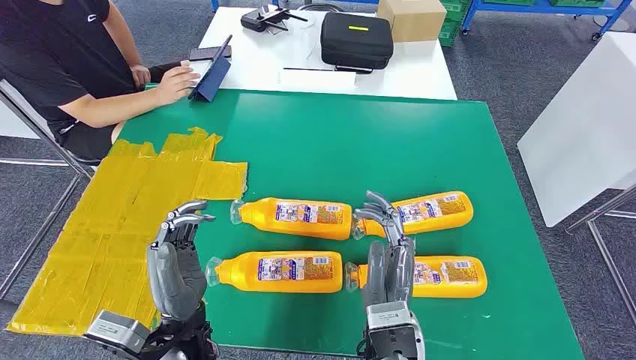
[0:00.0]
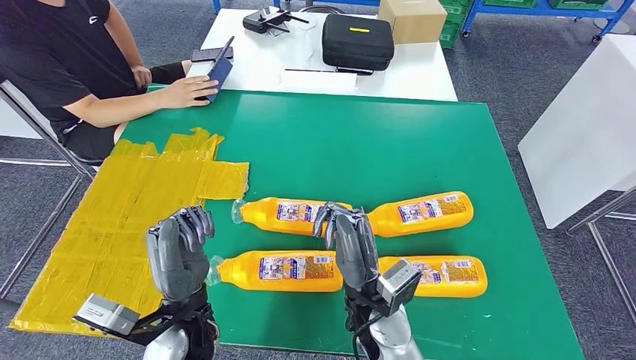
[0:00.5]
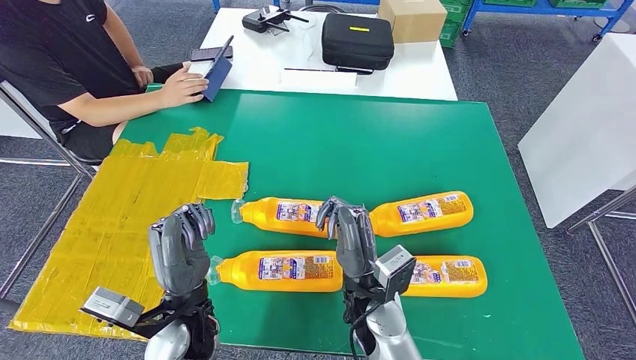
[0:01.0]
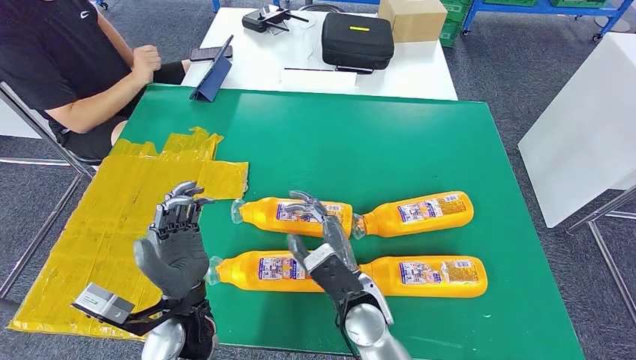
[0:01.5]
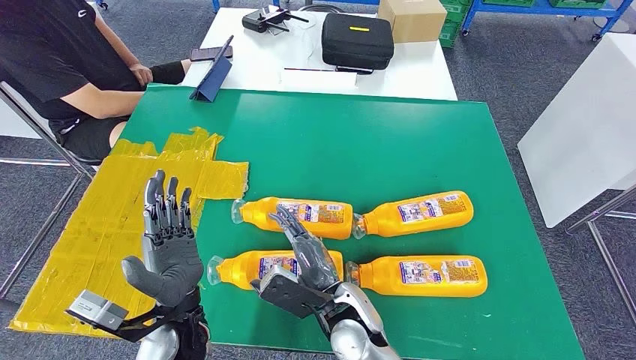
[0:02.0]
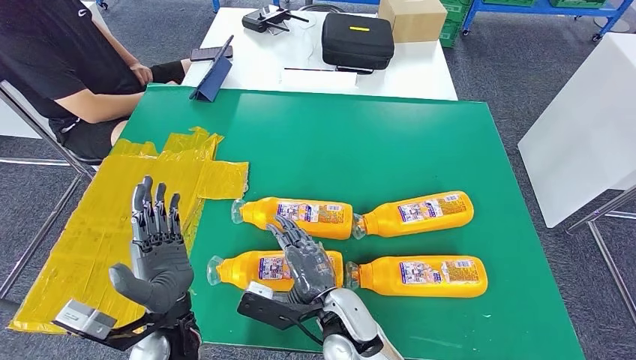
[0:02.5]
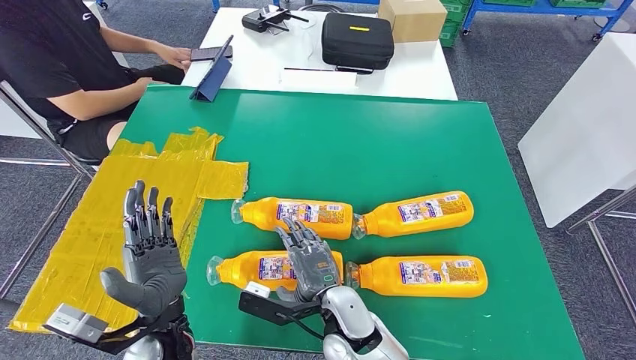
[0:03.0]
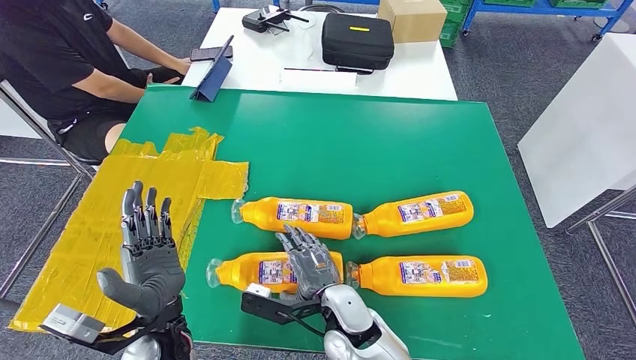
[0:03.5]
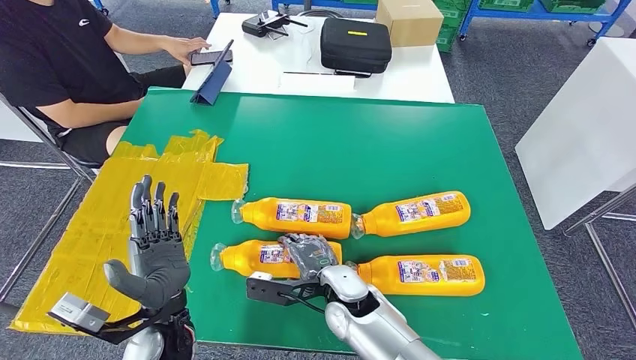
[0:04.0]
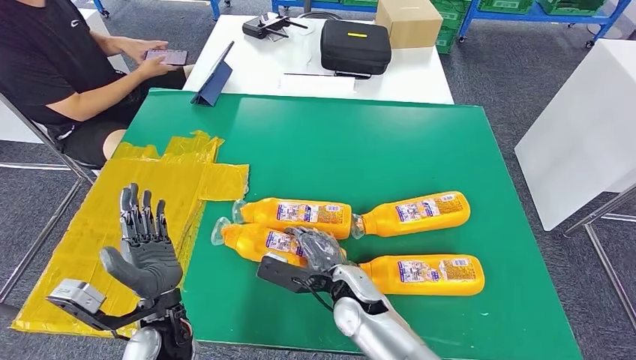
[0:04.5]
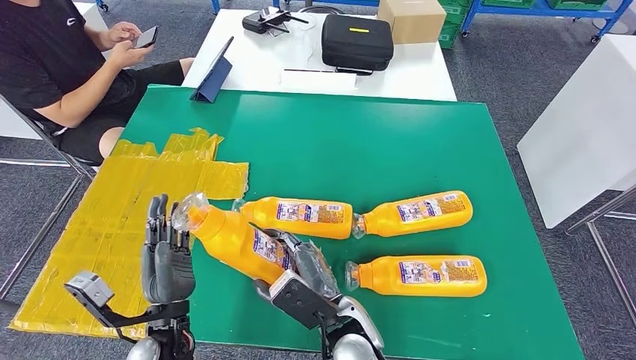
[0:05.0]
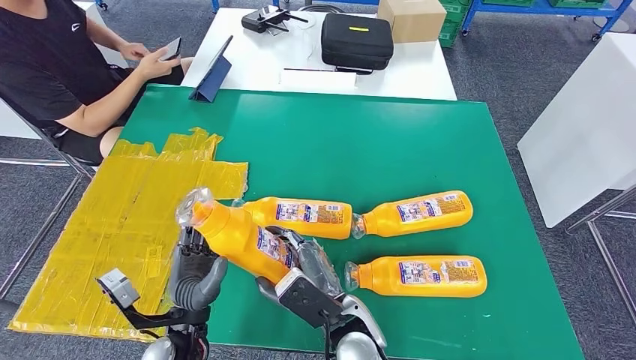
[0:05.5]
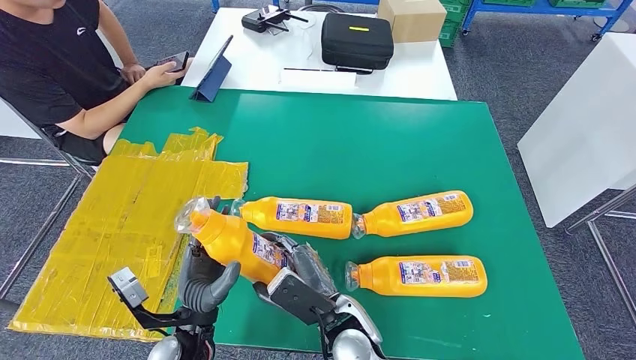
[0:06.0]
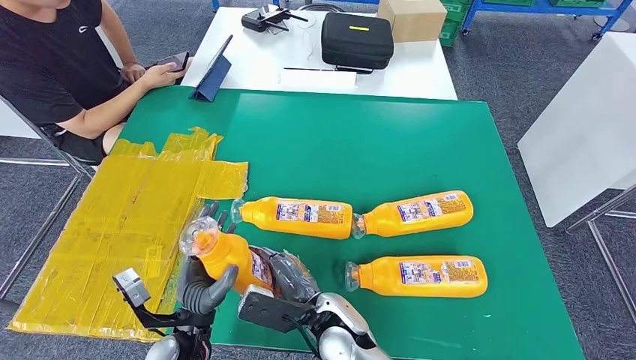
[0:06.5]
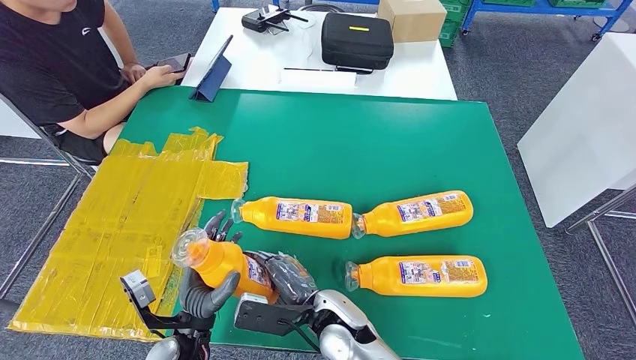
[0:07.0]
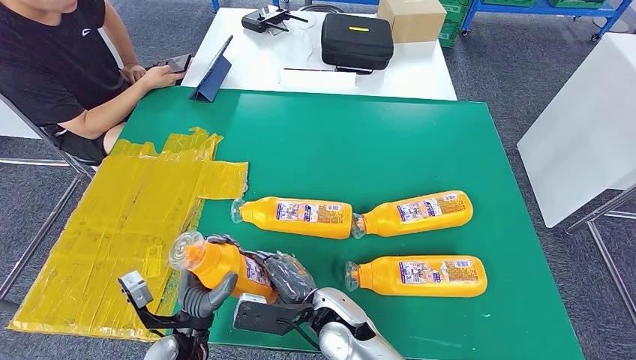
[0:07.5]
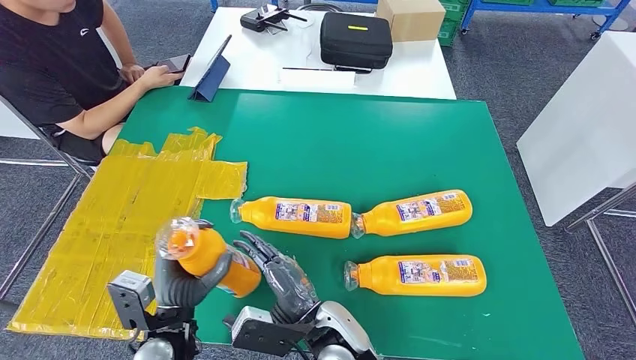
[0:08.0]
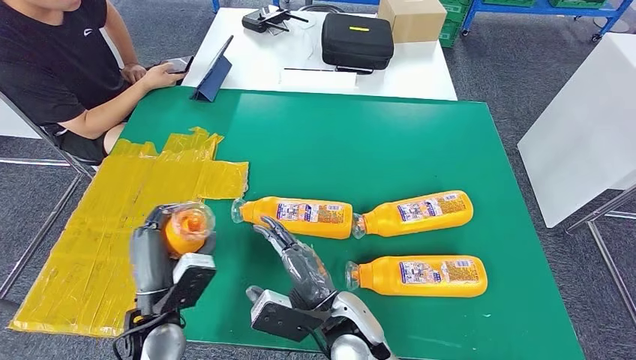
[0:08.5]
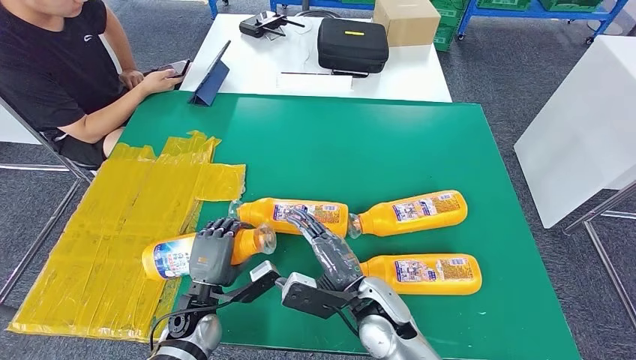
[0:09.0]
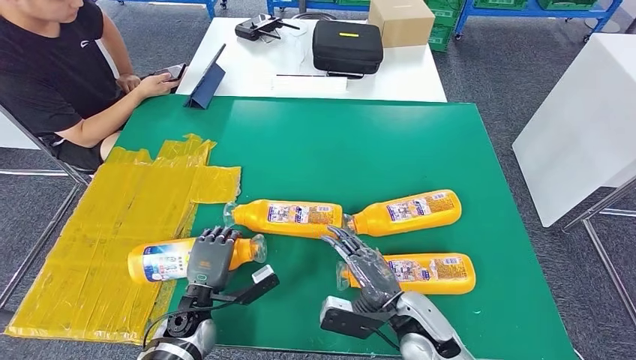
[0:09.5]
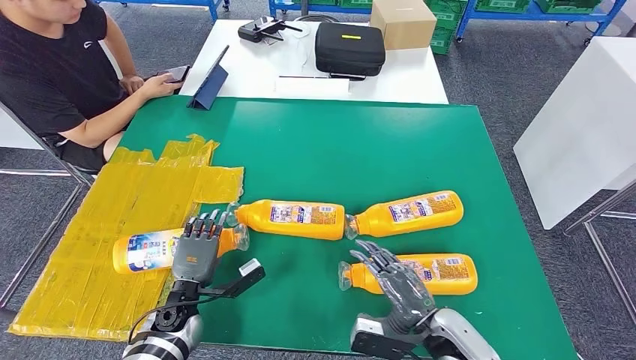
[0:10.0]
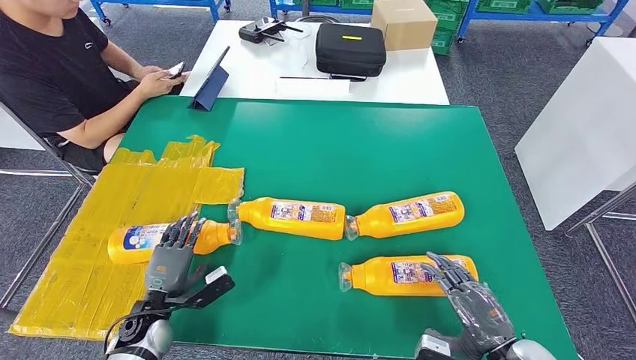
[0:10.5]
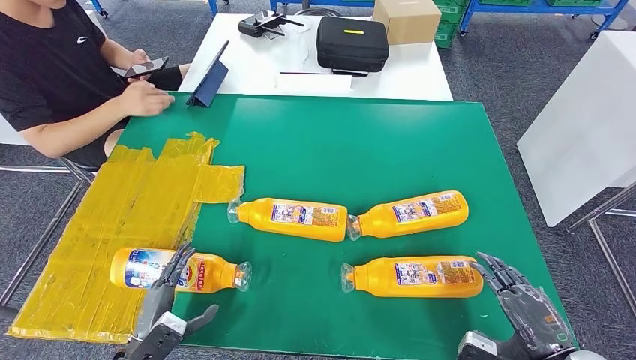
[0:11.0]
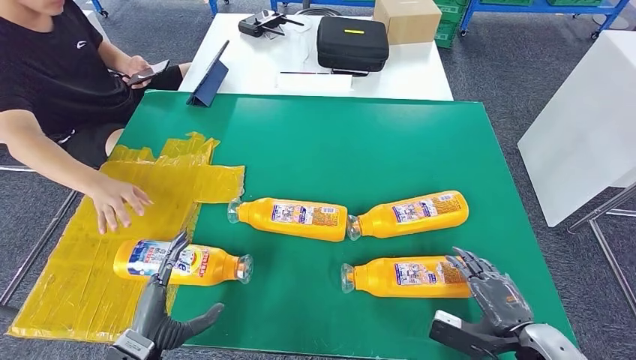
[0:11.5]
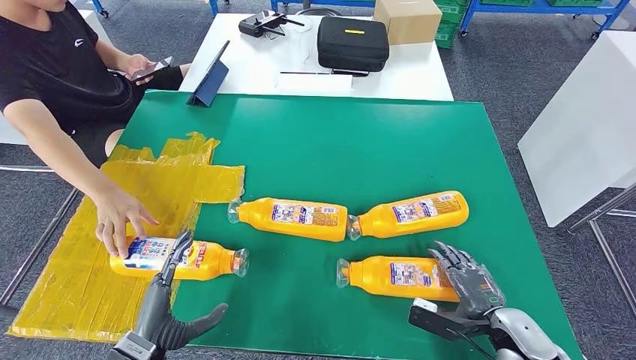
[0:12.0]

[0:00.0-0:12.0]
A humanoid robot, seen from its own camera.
Step, 0:00.0 to 0:06.5: Take the fast-moving consumer goods bottle from the table.

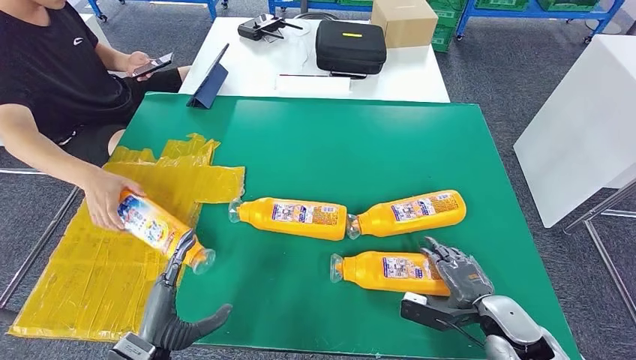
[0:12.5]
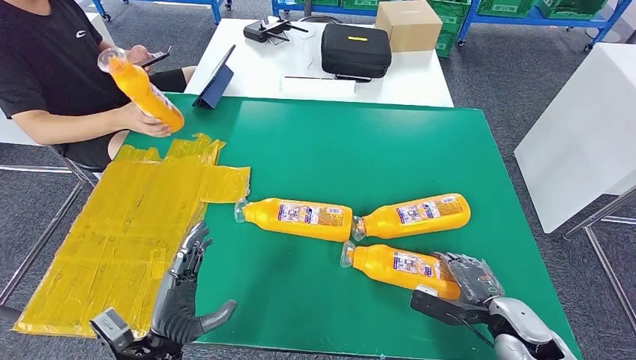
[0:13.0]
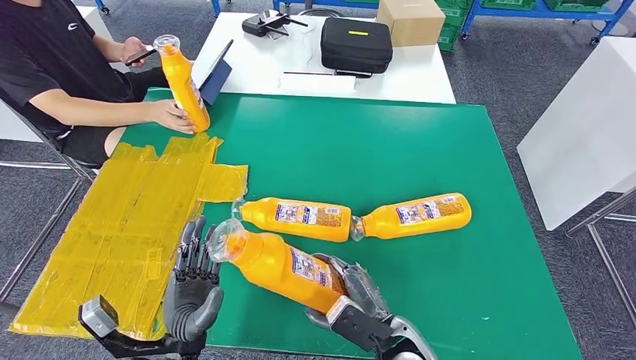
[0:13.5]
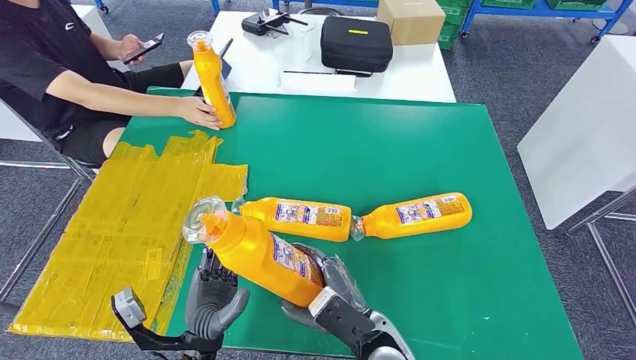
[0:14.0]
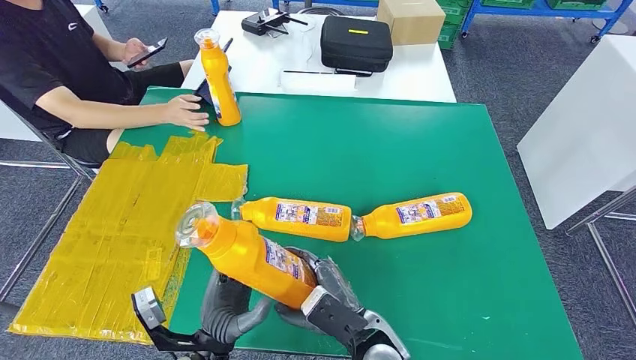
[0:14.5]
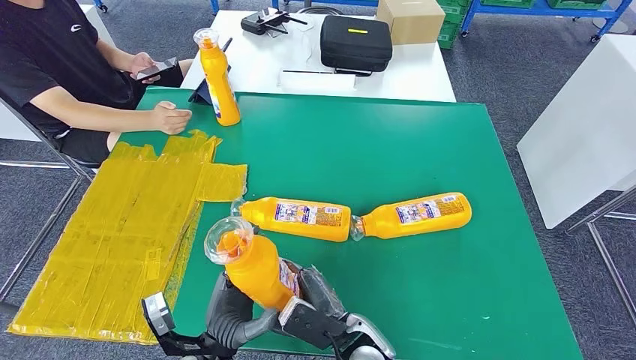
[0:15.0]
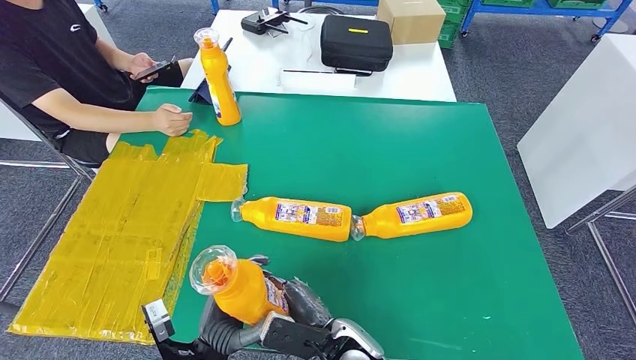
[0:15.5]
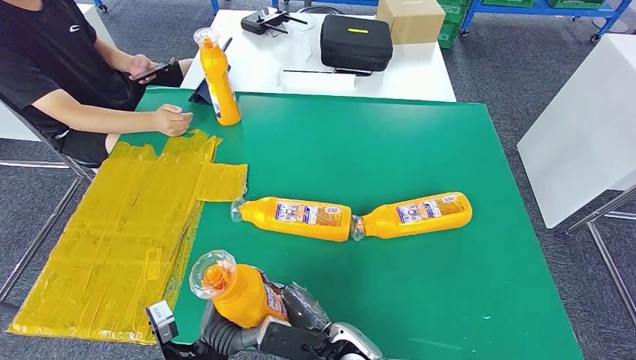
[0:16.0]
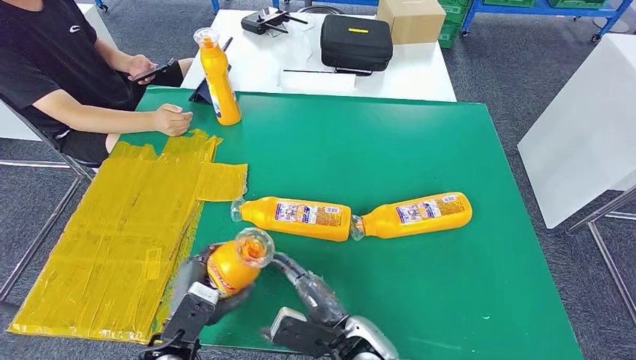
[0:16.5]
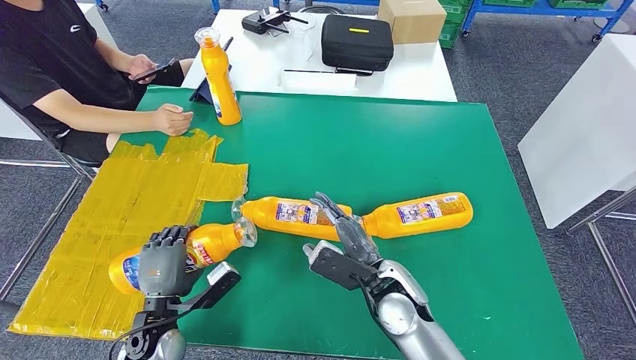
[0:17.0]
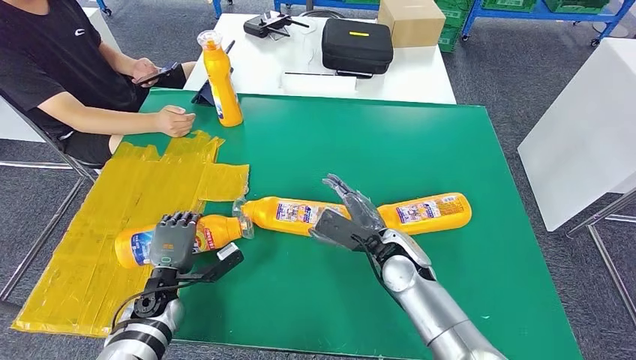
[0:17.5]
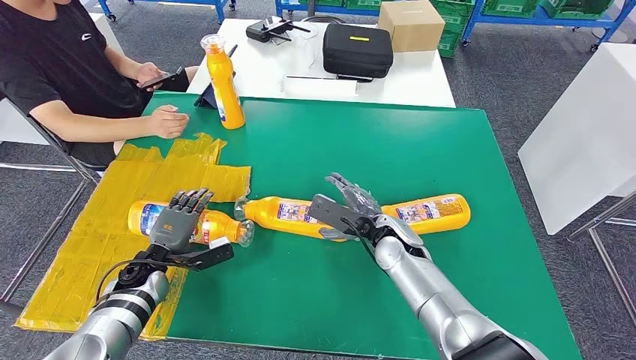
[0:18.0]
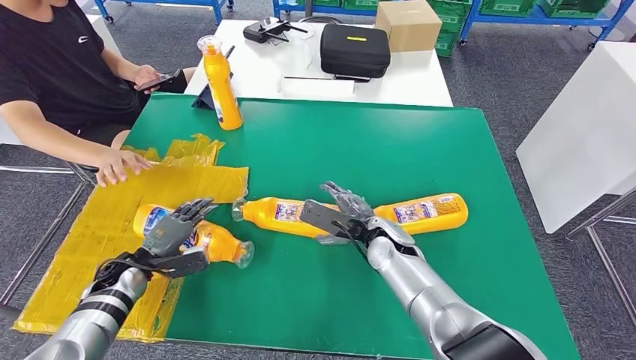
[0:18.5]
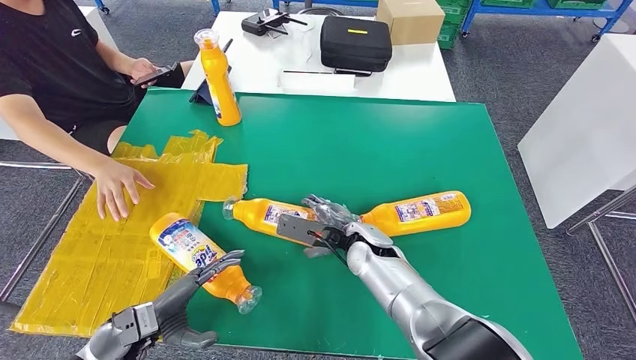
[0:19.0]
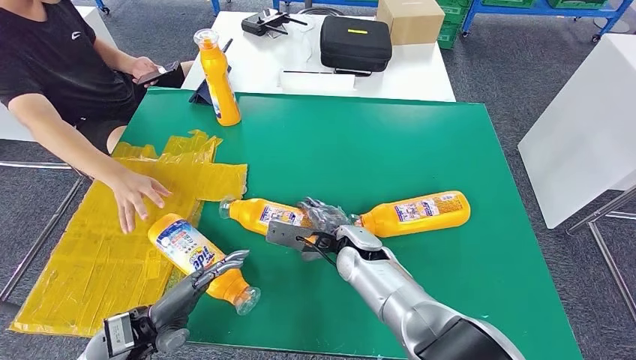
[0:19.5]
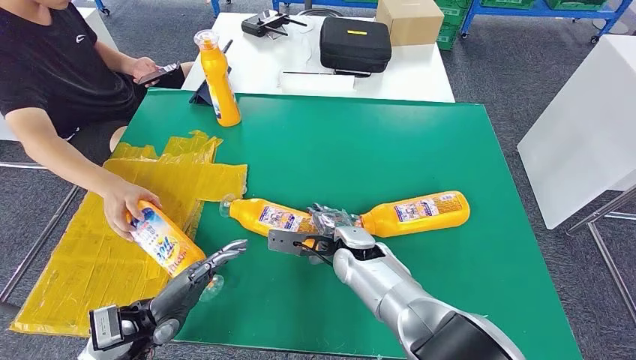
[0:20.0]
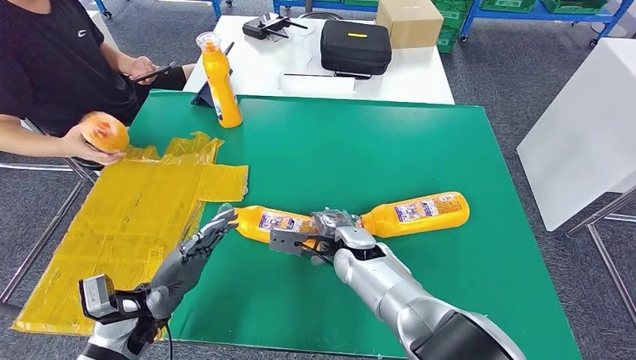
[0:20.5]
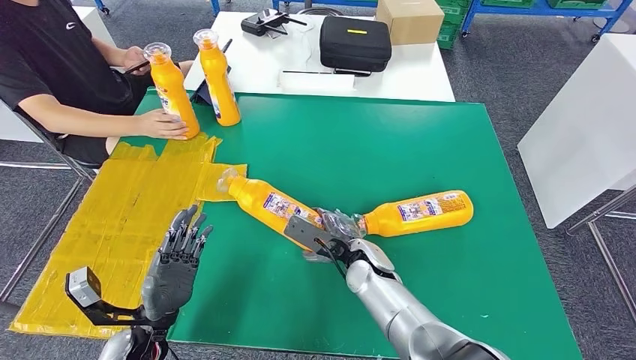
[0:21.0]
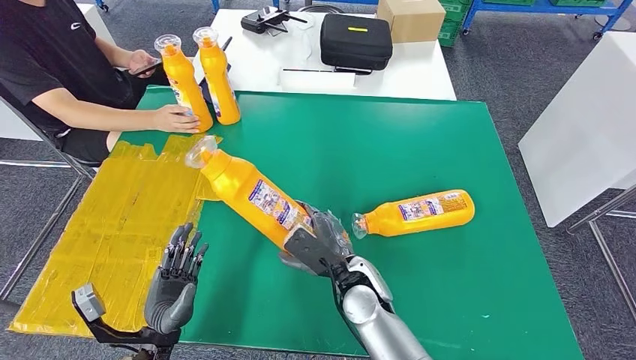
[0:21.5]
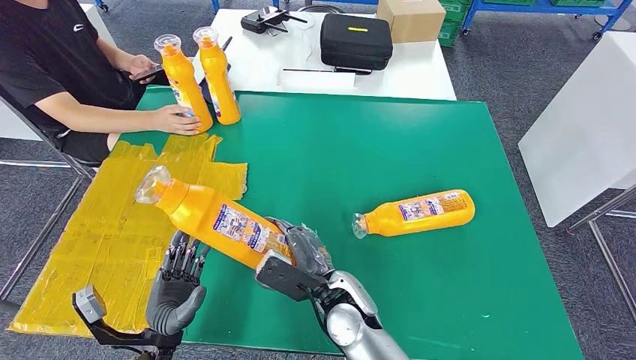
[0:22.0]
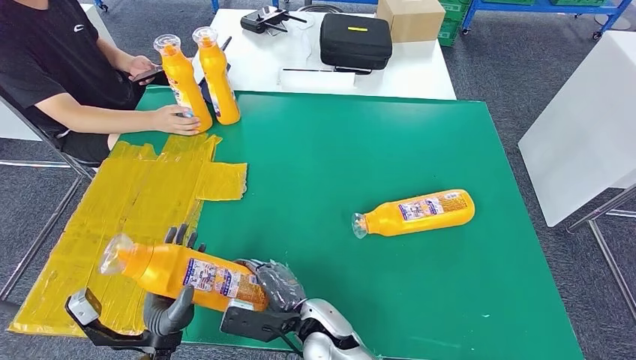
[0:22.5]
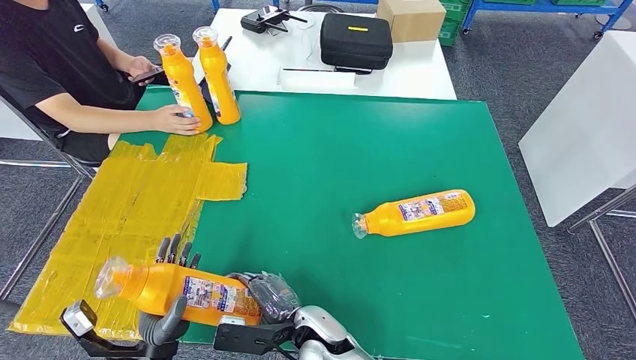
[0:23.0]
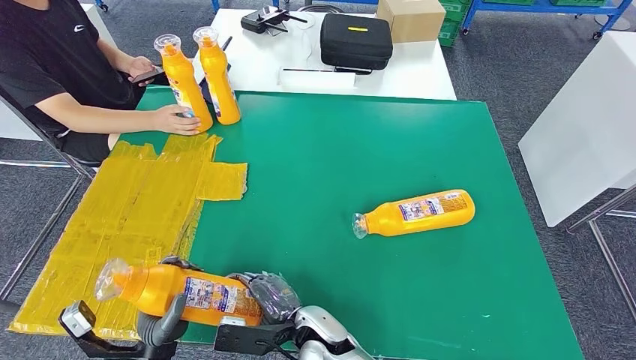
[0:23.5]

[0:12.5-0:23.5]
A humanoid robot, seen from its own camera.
Step, 0:12.5 to 0:15.0: Pick up the fast-moving consumer goods bottle from the table.
Step, 0:15.5 to 0:18.0: Flip the fast-moving consumer goods bottle to the front side.
Step, 0:18.5 to 0:22.0: Pick up the fast-moving consumer goods bottle from the table.
0:14.5 to 0:16.0: The right hand is displaced to the left by roughly 5 cm.
0:21.5 to 0:23.5: The right hand moves backward and to the left, about 10 cm.
